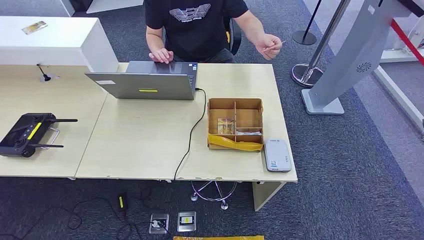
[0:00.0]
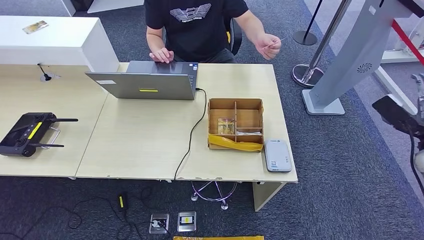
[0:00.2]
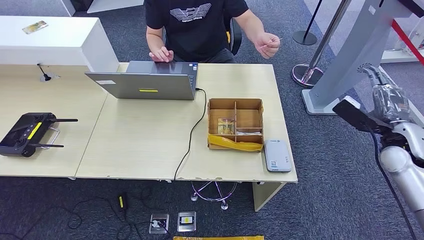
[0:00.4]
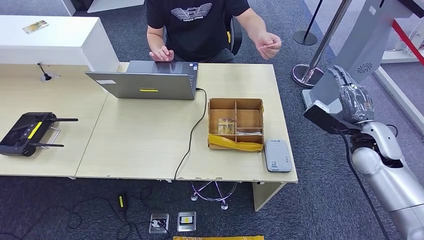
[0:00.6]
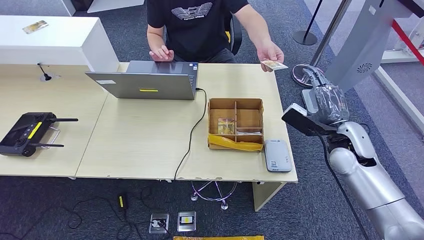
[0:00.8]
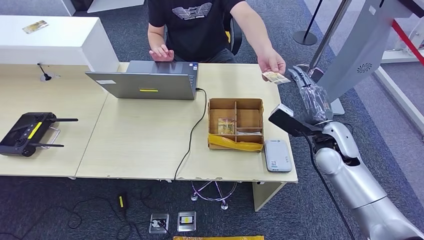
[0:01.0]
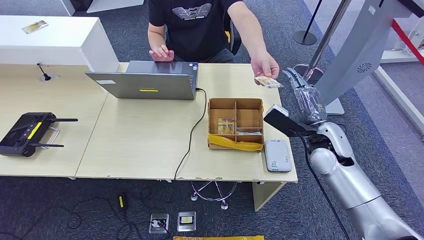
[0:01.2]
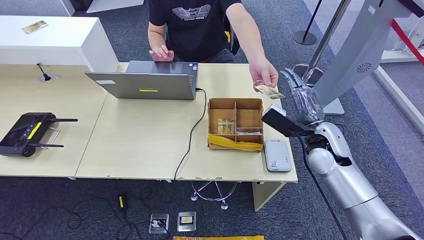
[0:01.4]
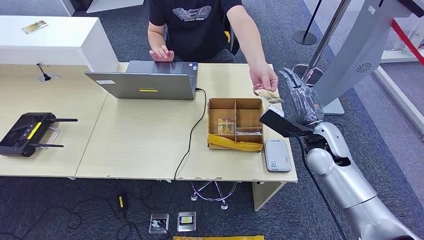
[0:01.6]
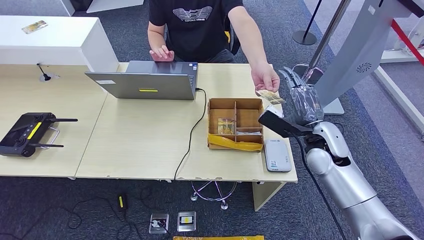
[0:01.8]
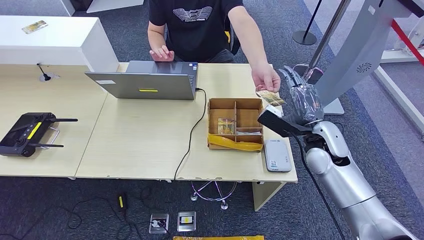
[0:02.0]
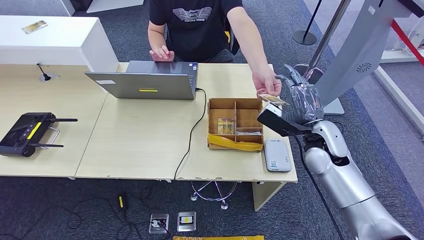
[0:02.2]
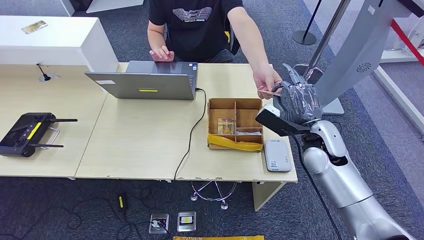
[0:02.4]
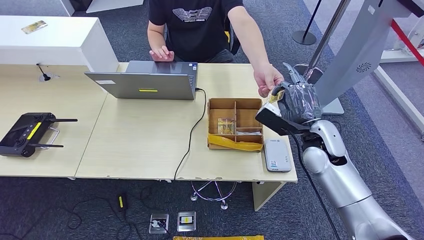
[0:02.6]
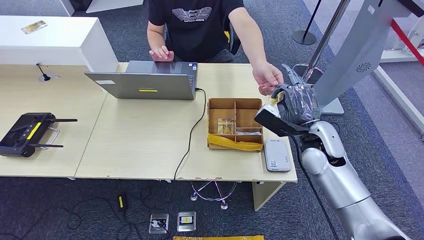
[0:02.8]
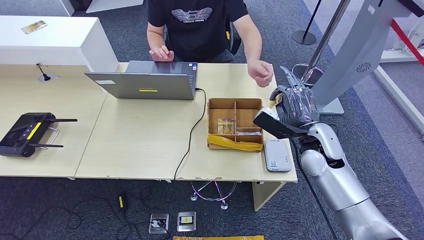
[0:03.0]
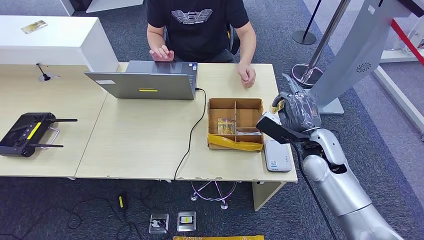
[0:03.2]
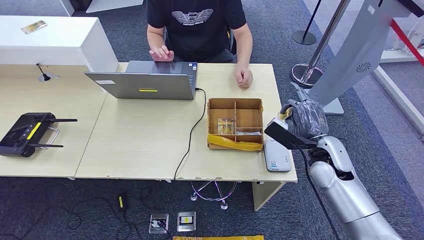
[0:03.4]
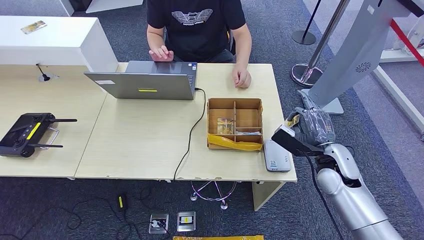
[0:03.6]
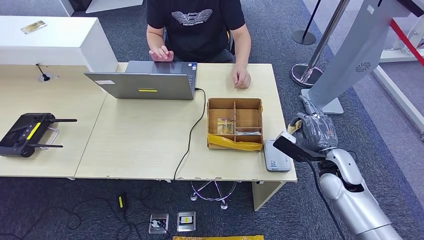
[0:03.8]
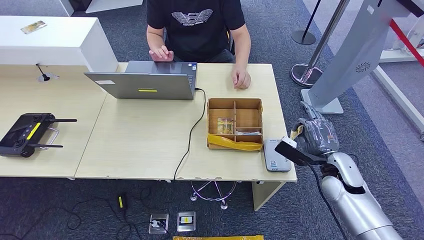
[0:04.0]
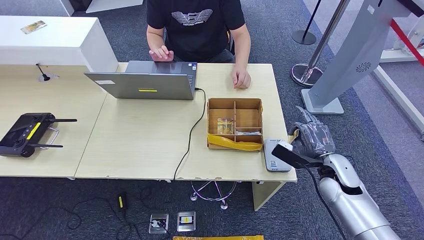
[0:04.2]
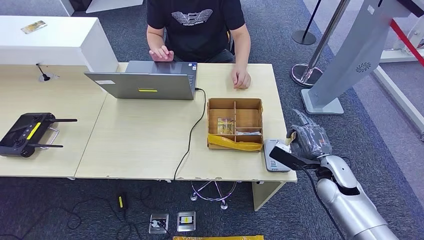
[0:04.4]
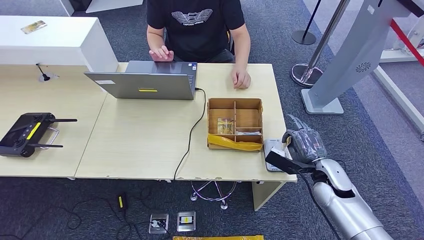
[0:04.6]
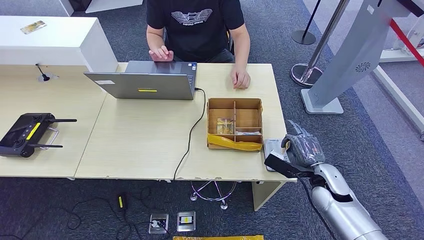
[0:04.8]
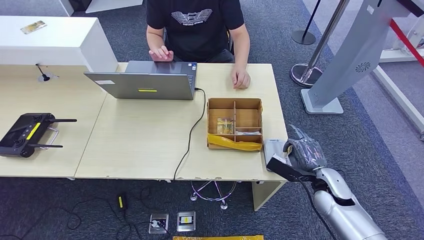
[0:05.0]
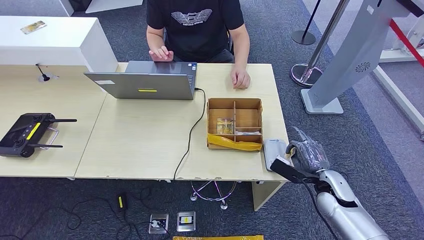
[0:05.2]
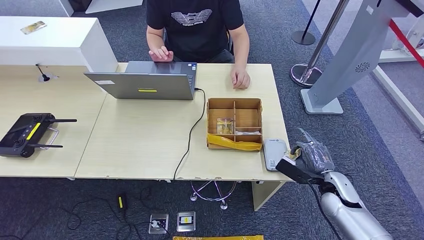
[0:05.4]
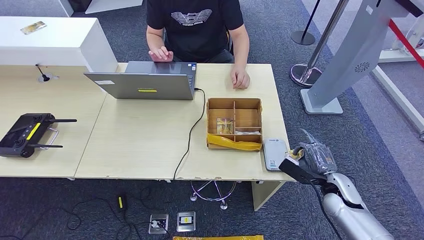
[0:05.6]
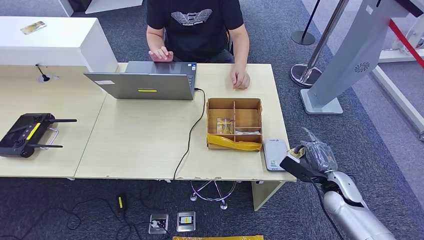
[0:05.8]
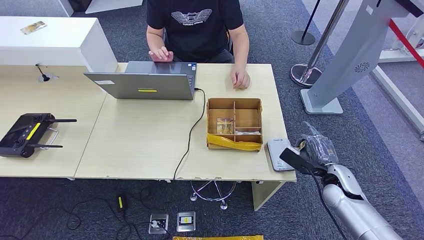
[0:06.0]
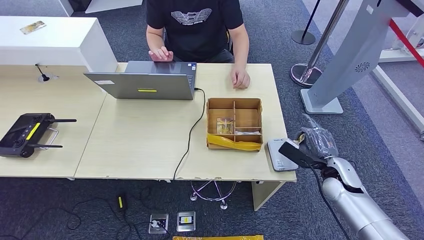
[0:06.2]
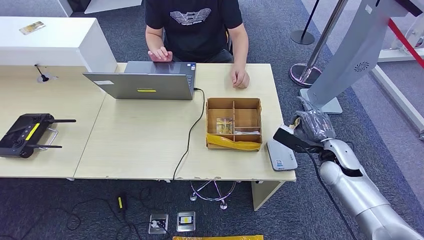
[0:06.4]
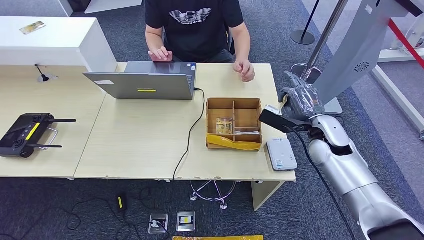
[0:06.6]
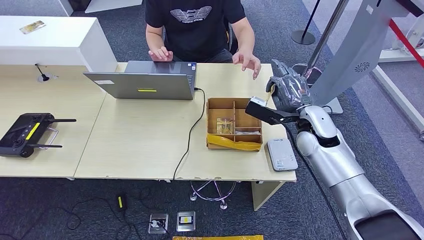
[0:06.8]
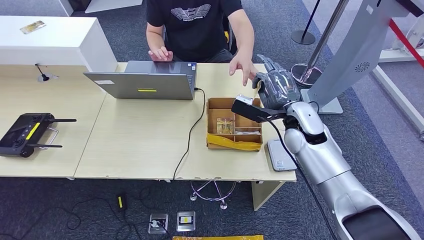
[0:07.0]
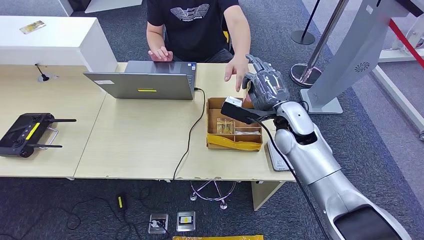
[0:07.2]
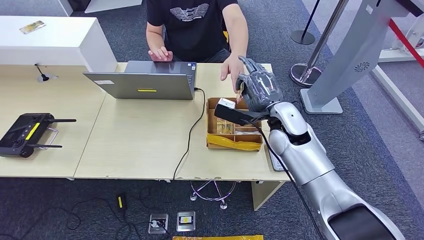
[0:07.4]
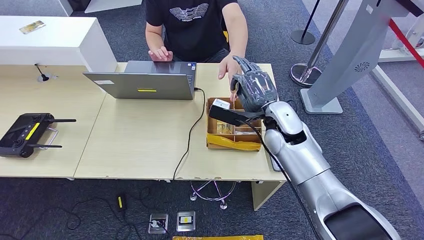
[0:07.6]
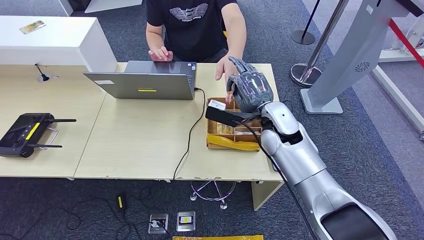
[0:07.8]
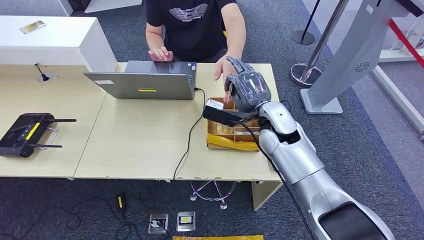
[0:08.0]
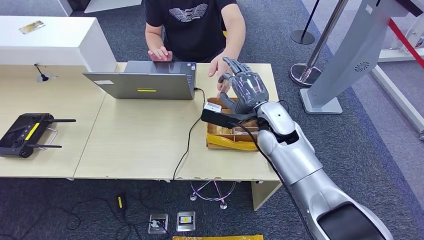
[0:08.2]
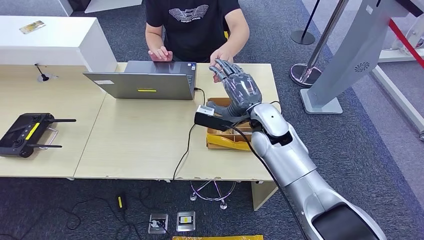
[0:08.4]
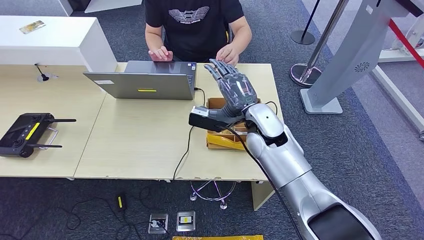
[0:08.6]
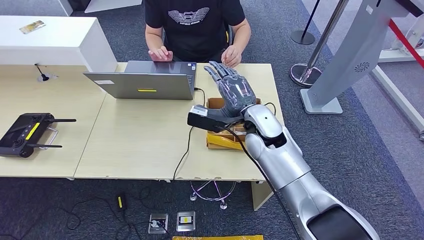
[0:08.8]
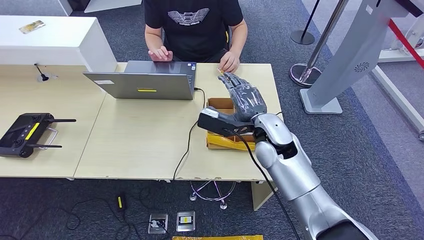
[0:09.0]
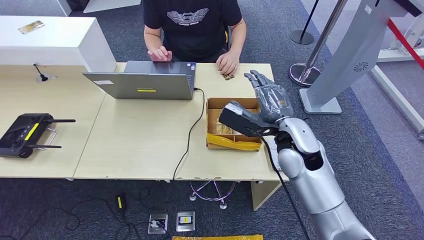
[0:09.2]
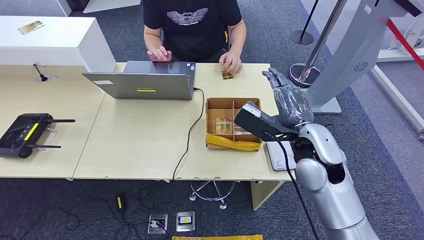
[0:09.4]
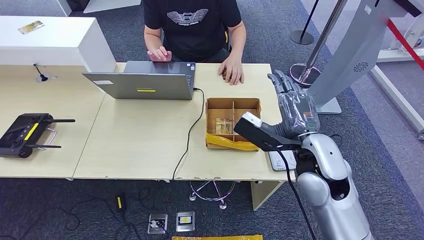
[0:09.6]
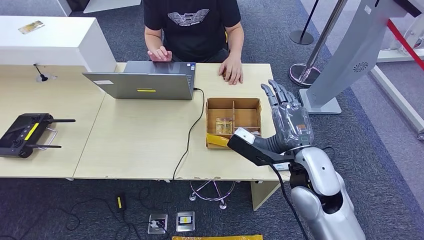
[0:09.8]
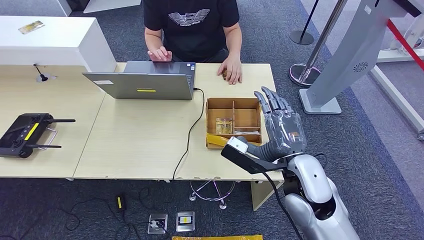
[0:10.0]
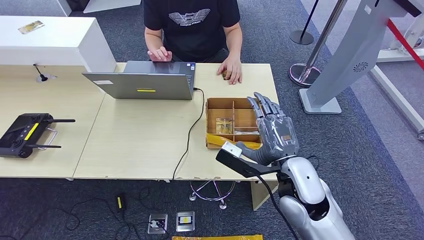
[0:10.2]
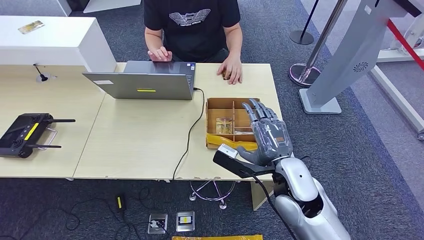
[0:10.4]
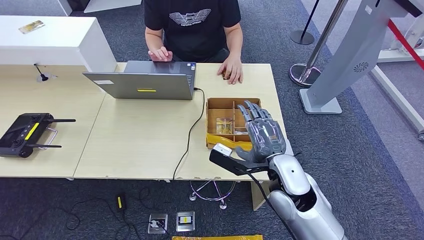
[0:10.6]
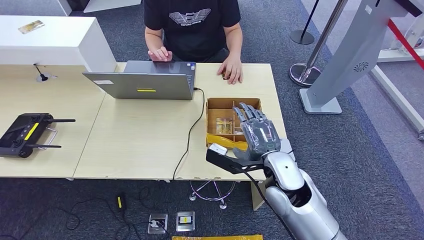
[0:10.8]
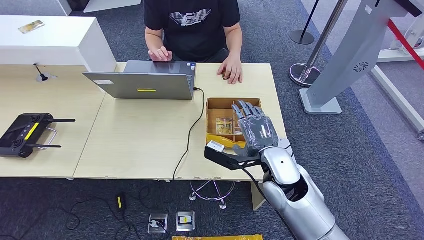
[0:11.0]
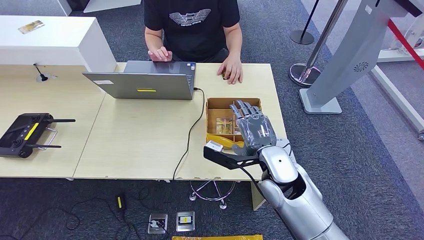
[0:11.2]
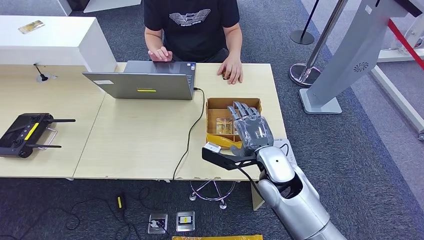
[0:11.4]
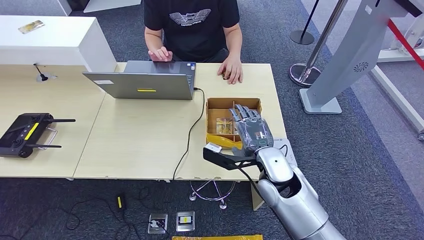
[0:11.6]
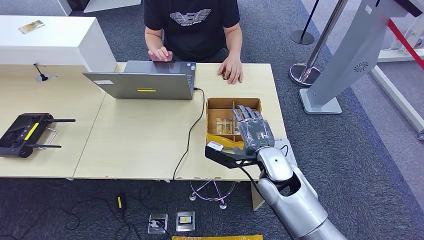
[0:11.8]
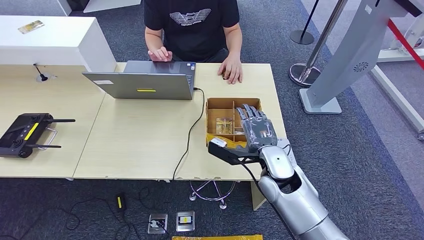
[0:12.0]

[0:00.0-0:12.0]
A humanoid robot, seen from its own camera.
Step, 0:00.0 to 0:03.4: Take the ID card from the person's hand.
Step, 0:03.6 to 0:05.8: Place the ID card on the card reader.
Step, 0:06.2 to 0:08.6: Hand the ID card to the person.
0:01.6 to 0:03.0: The hands move only a little.
0:03.0 to 0:04.4: The right hand shifts about 10 cm downward and to the right.
0:06.0 to 0:07.6: The right hand travels to the left, upward and forward by roughly 25 cm.
0:07.6 to 0:09.0: There are only small adjustments of the hands.
0:09.0 to 0:10.4: The right hand goes some 10 cm backward.
0:10.4 to 0:12.0: The right hand shifts approximately 5 cm forward.

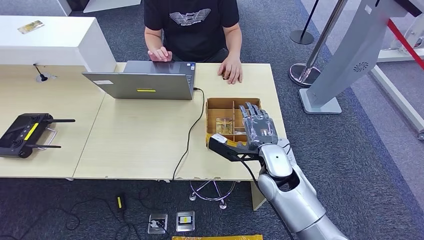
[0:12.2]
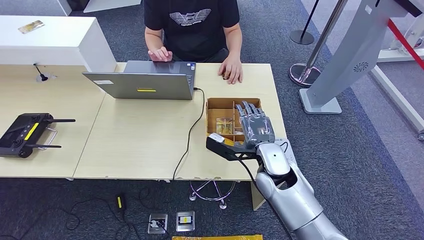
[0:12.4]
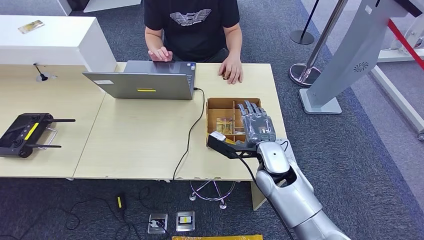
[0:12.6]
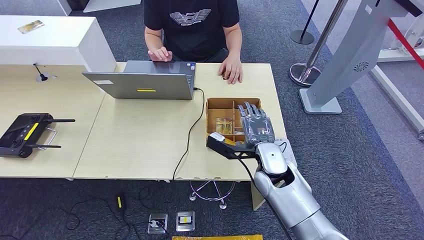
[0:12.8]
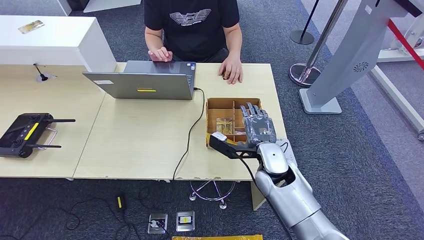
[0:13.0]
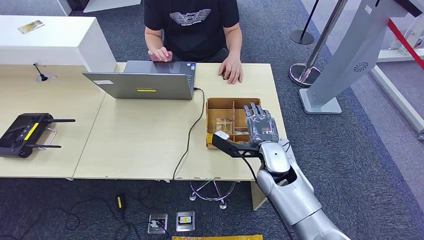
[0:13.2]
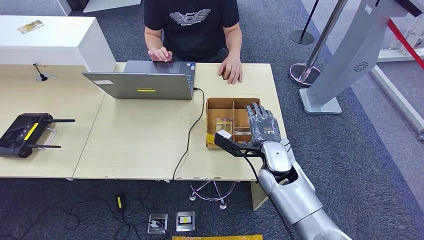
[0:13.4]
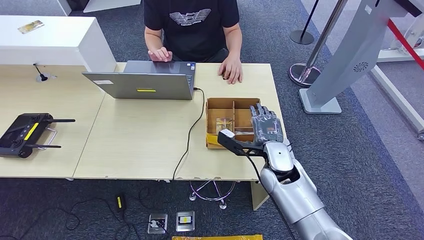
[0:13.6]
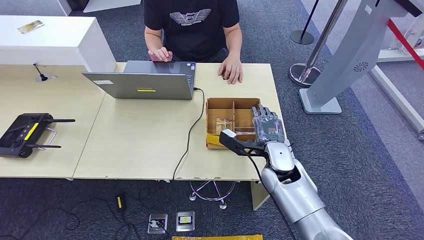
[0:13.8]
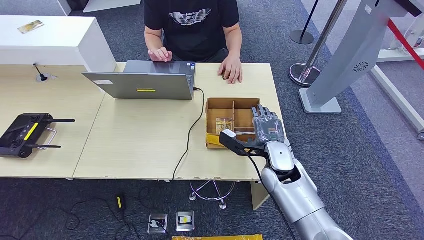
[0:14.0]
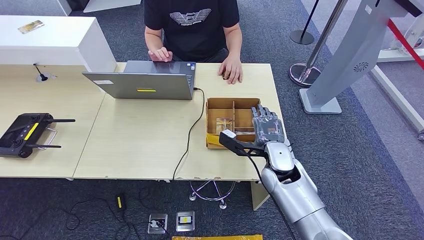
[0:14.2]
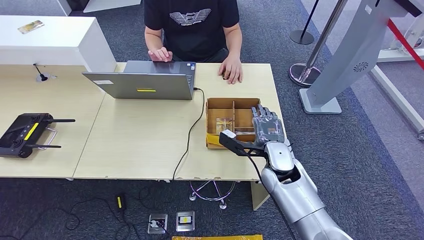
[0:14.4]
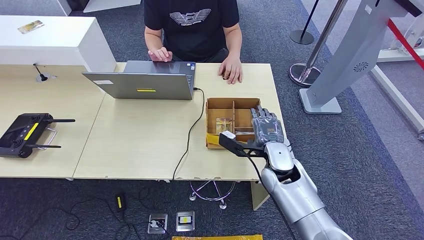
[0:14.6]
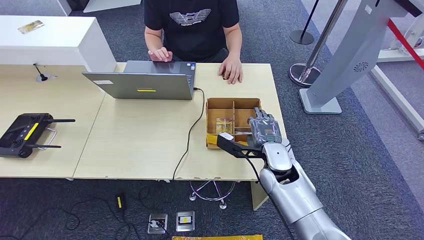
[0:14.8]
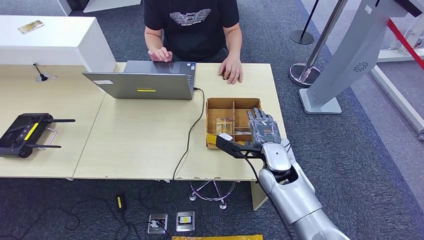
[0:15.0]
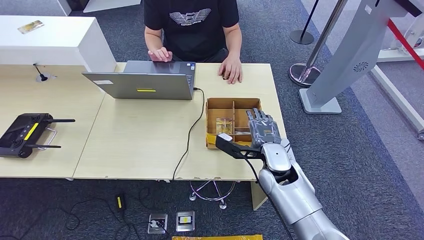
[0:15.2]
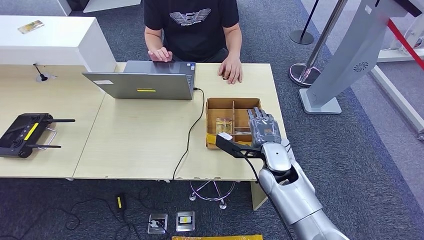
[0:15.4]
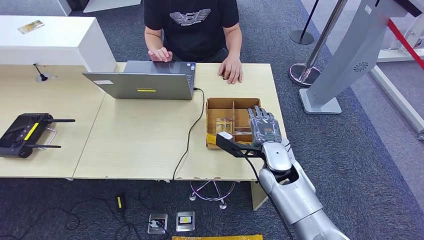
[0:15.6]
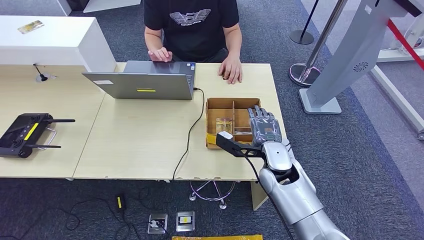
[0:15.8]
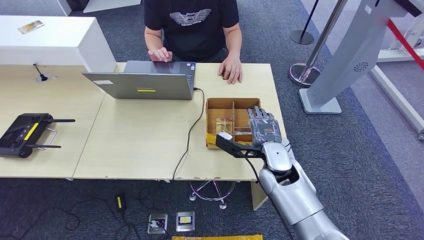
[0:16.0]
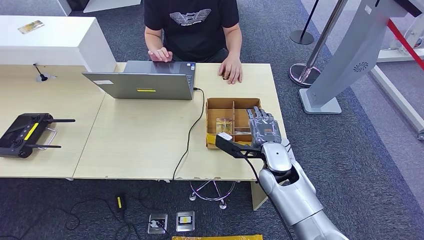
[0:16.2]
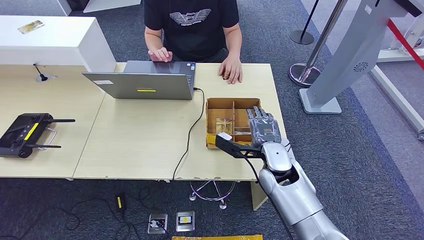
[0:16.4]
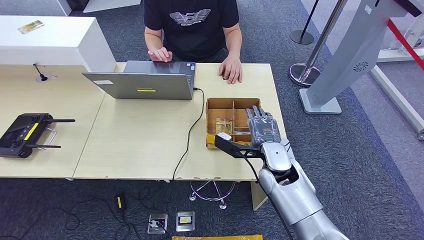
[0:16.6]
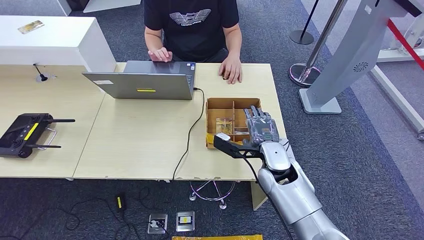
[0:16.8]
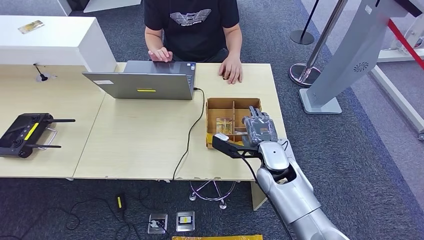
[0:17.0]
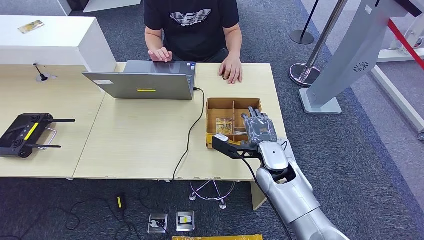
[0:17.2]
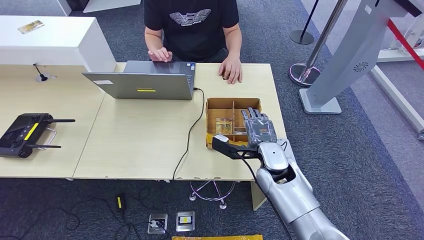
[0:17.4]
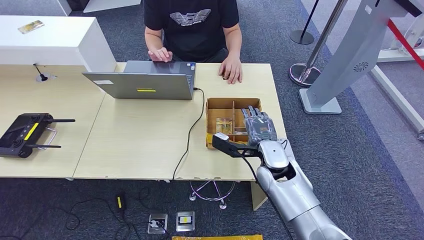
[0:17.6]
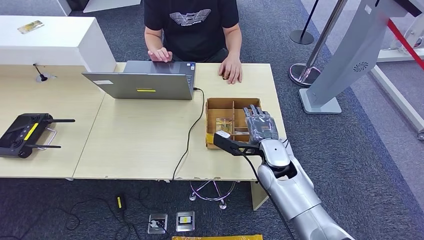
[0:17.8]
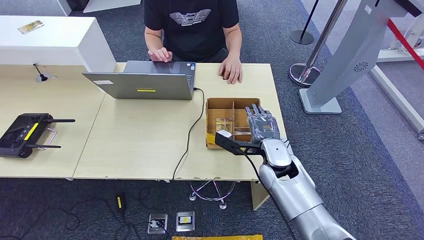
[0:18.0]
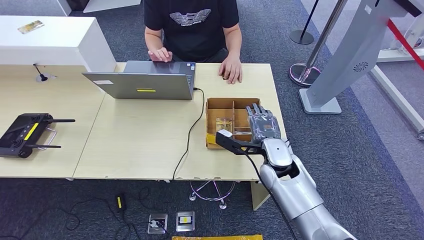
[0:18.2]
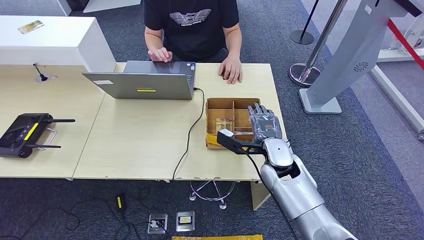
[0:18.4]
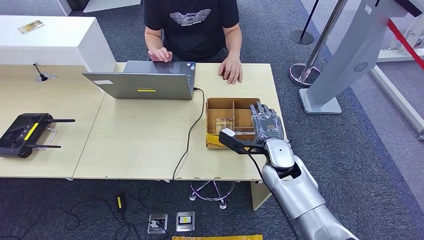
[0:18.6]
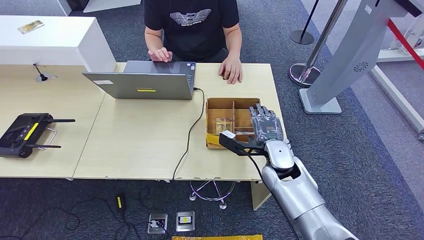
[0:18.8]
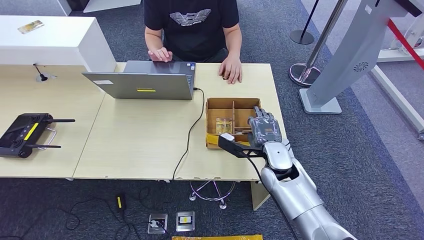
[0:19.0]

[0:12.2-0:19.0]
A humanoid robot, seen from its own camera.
0:12.2 to 0:13.6: The hands stay close to where they were, moving slightly.
0:13.6 to 0:16.2: Both hands stay put.
0:16.2 to 0:19.0: The hands move only a little.
